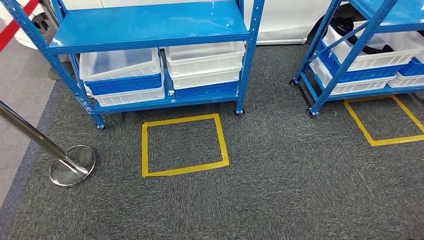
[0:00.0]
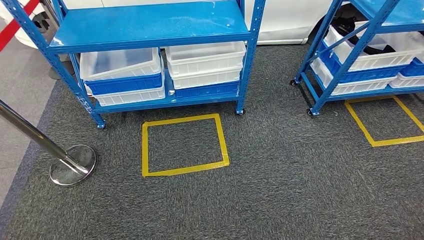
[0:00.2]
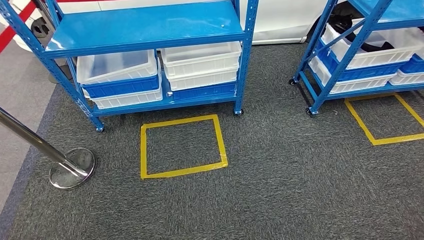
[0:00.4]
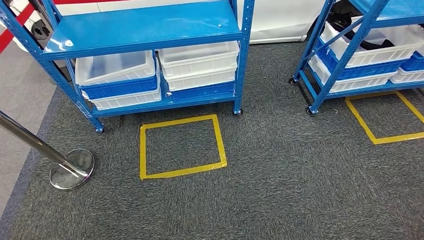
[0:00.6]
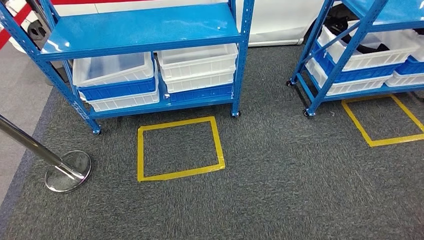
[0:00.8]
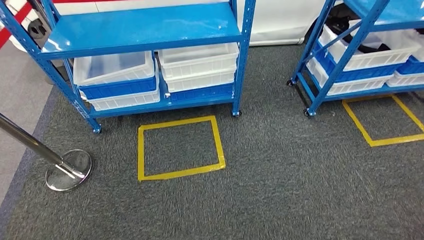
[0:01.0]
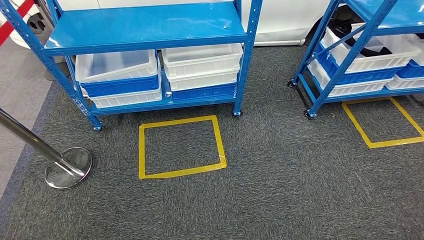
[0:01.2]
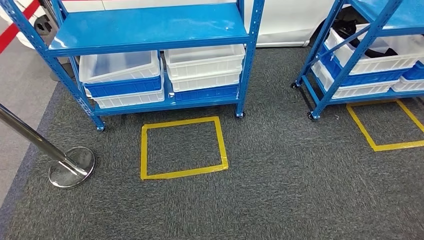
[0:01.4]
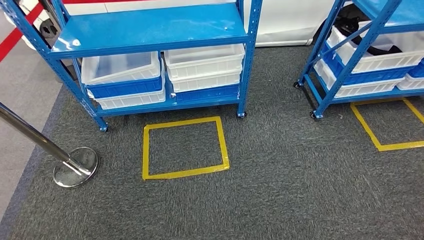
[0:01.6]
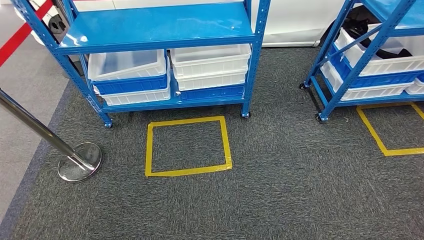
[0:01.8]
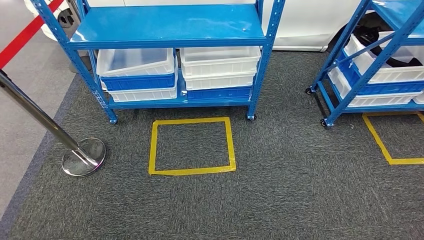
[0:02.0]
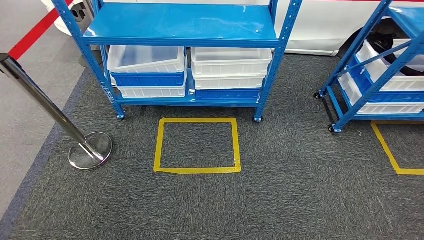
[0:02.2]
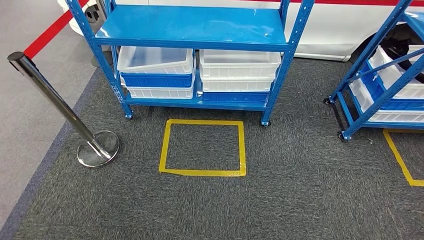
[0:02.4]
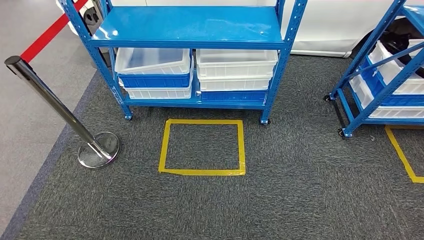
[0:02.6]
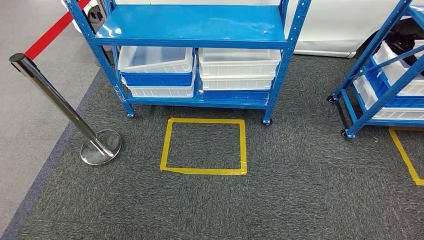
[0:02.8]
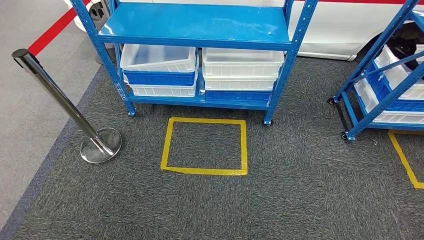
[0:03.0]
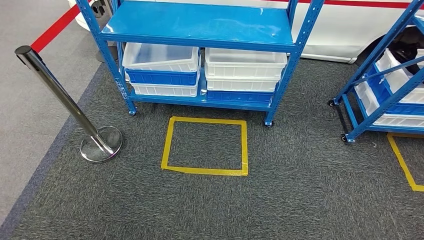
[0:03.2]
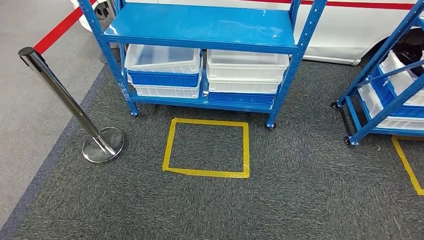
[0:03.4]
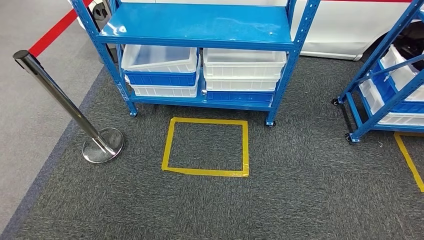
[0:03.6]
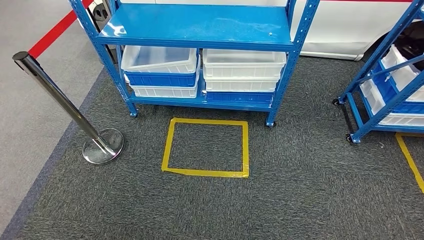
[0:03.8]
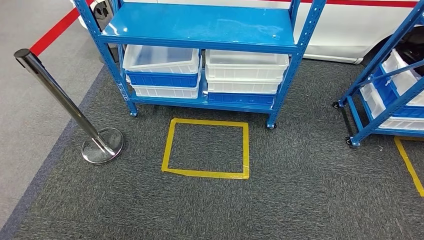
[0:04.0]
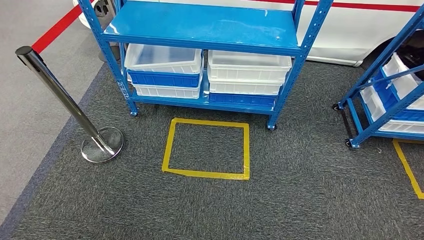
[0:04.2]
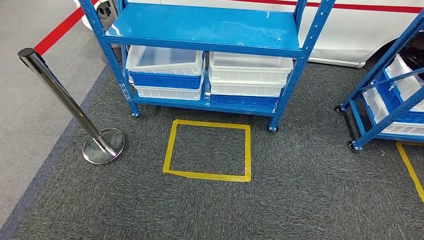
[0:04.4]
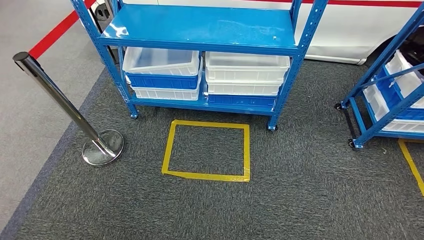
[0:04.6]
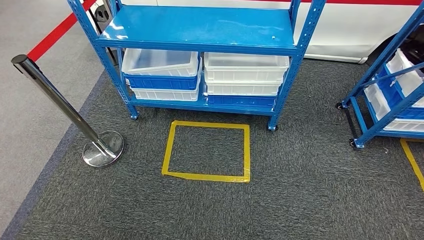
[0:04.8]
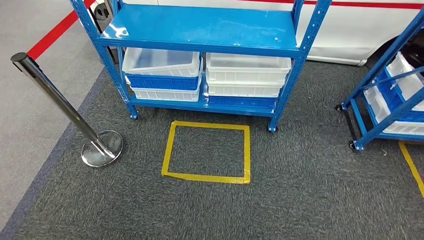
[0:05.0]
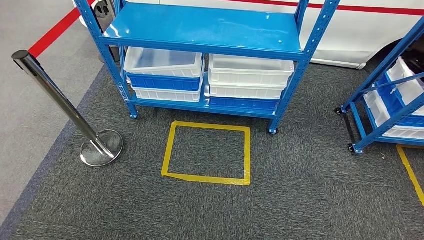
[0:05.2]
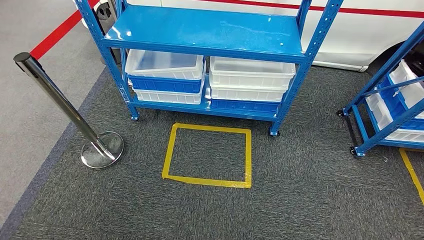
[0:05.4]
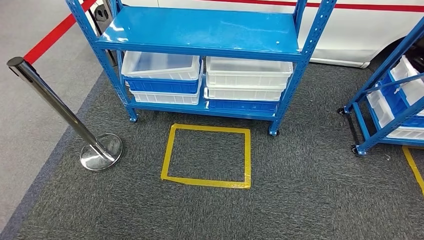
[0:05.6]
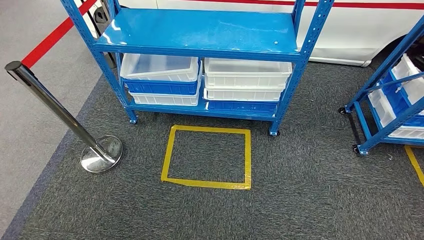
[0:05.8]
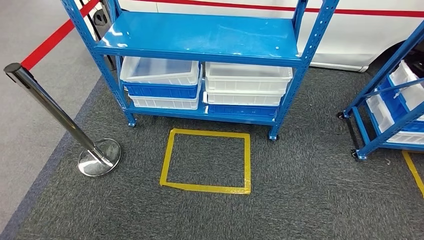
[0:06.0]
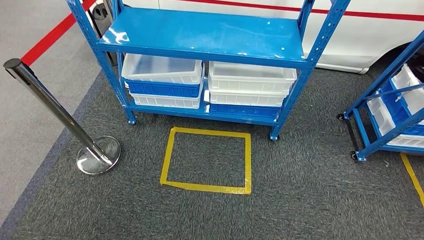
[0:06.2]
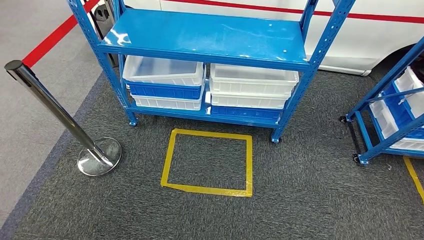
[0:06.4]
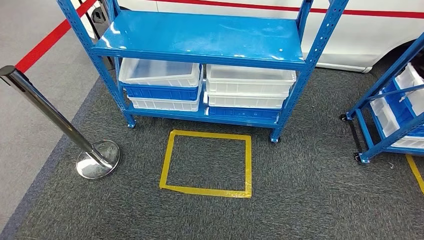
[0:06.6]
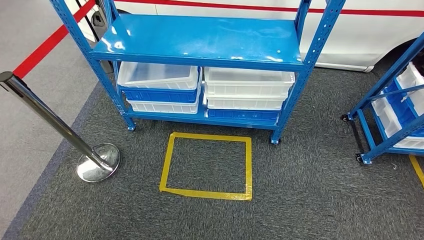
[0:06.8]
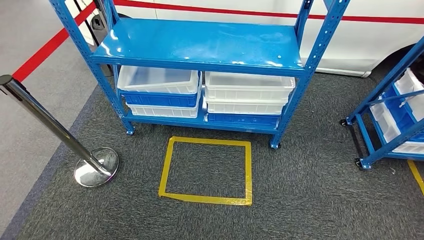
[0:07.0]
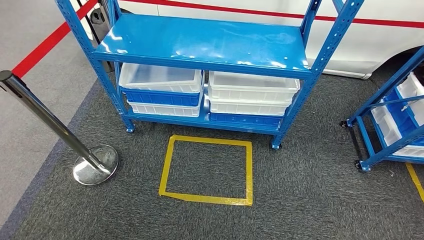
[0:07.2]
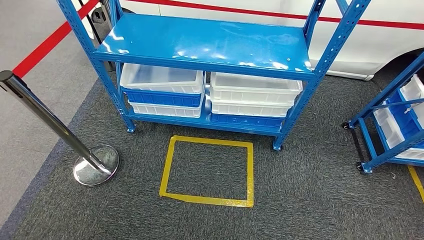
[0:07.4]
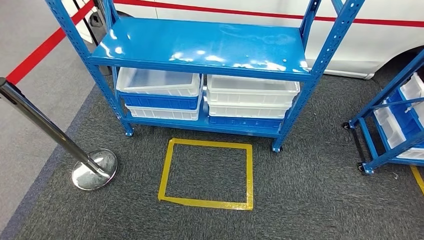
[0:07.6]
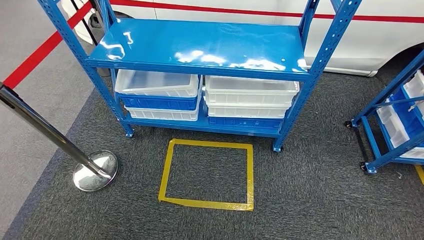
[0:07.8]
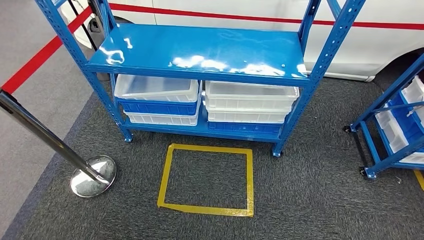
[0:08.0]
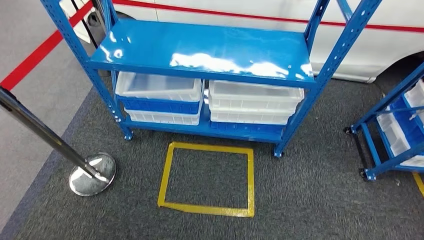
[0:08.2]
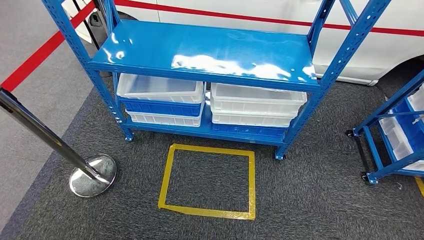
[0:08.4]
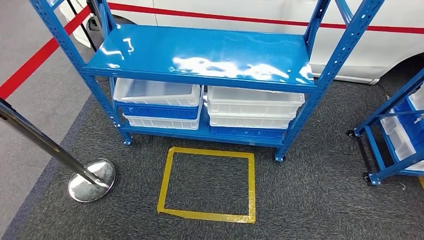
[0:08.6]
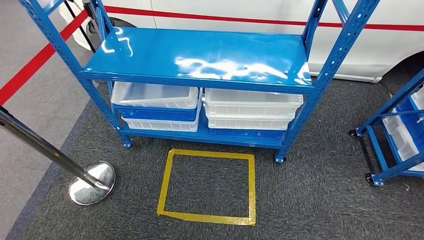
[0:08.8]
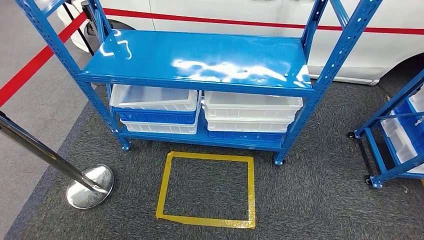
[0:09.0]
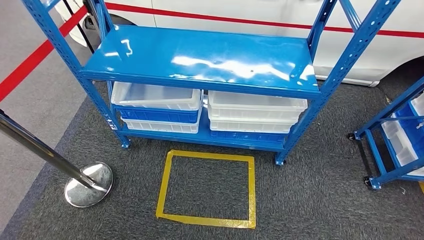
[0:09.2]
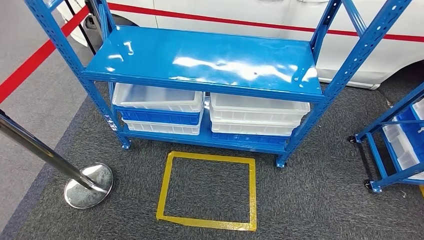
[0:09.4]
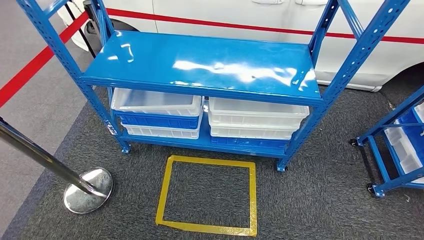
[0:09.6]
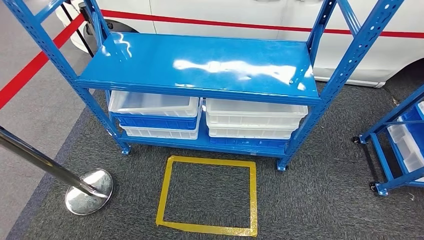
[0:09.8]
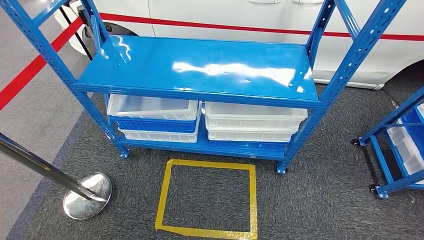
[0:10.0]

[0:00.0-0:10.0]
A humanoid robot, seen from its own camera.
0:00.0 to 0:01.4: The hands move only a little.

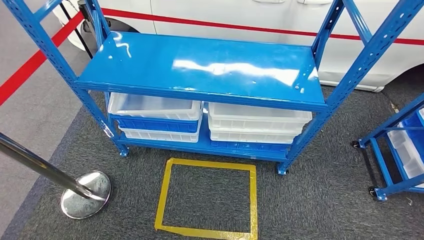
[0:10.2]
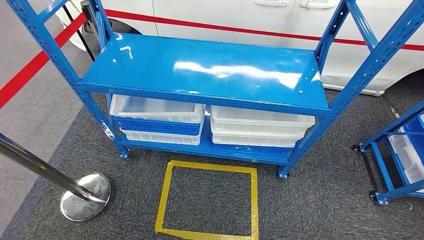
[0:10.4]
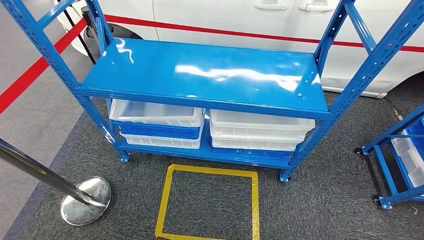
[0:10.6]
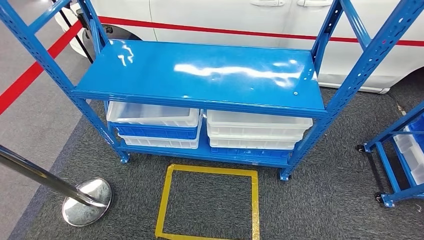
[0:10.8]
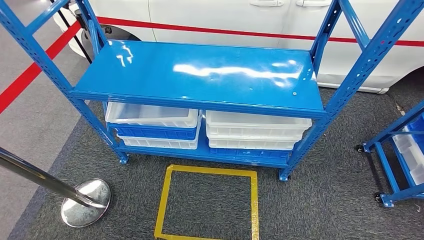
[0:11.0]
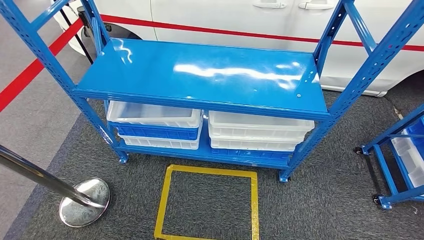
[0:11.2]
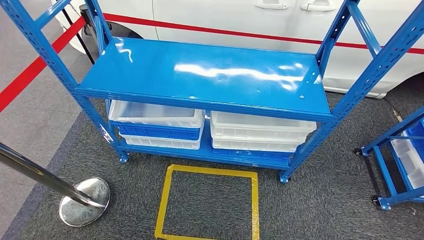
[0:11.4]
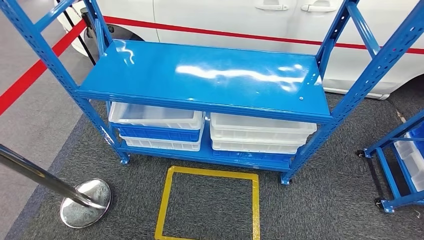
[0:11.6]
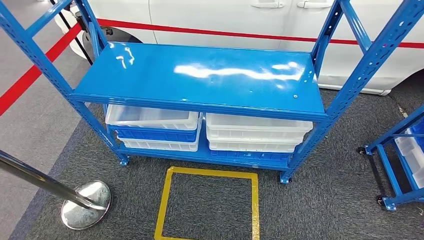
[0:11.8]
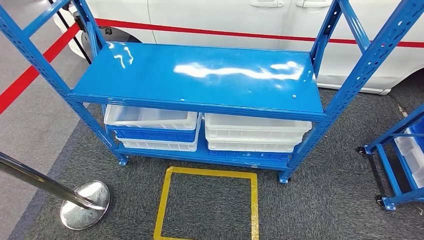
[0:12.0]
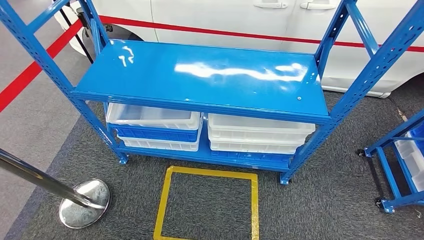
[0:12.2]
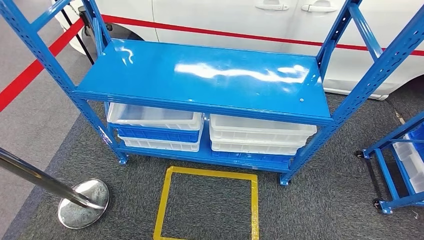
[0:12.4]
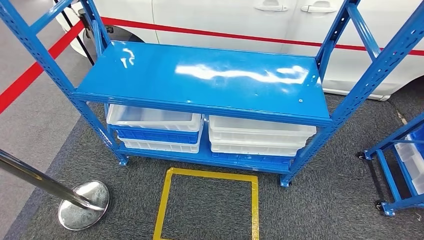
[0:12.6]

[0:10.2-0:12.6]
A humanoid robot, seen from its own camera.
Step, 0:10.2 to 0:12.6: Move to the initial position of the shelf.
